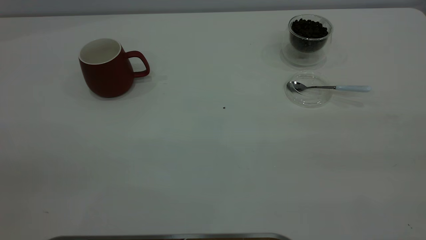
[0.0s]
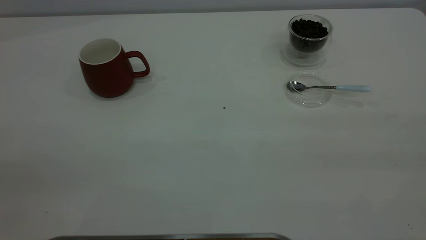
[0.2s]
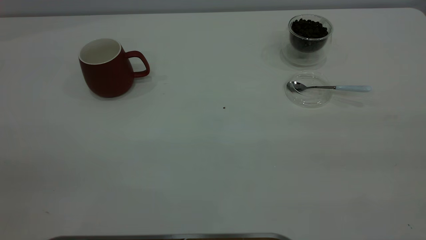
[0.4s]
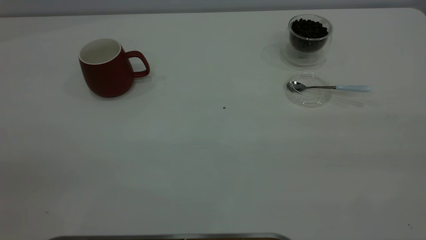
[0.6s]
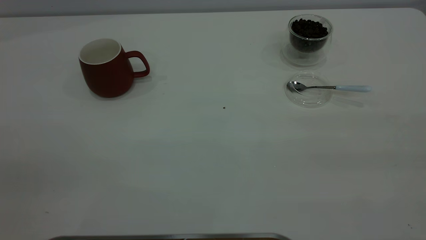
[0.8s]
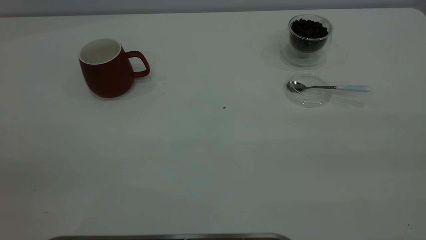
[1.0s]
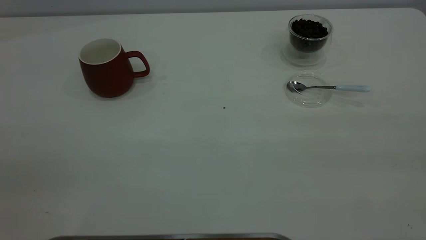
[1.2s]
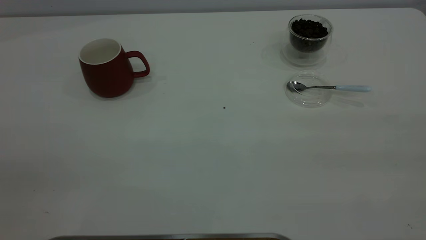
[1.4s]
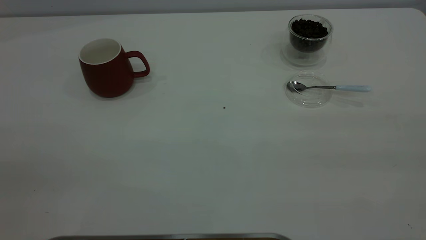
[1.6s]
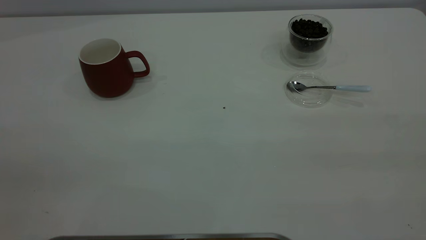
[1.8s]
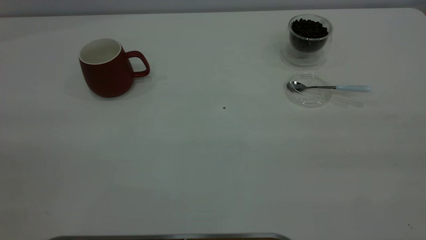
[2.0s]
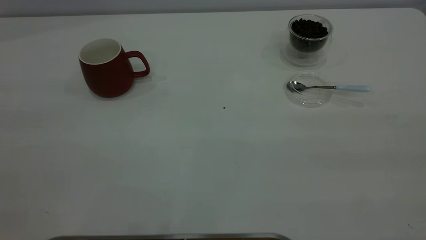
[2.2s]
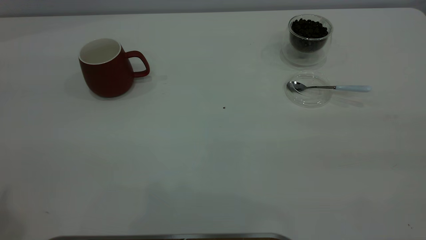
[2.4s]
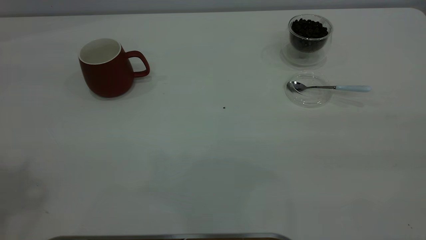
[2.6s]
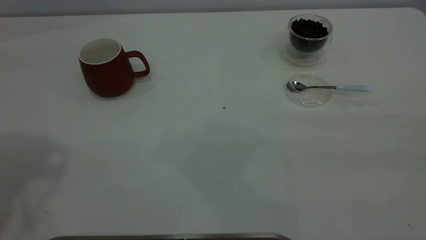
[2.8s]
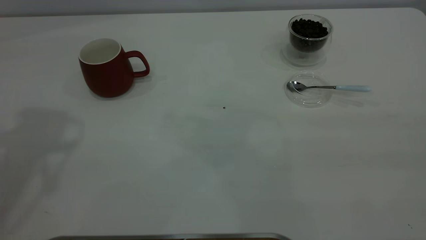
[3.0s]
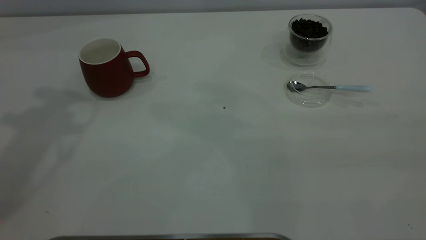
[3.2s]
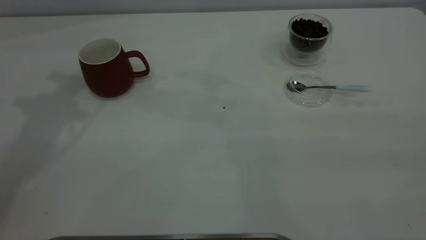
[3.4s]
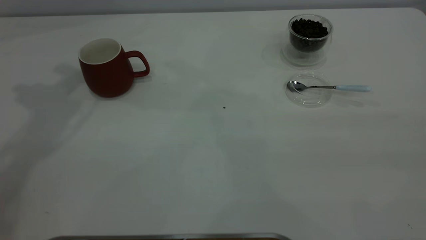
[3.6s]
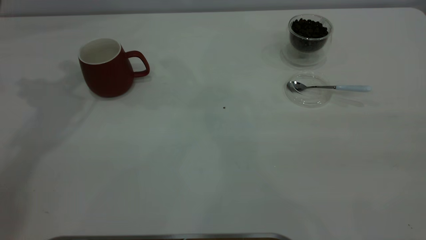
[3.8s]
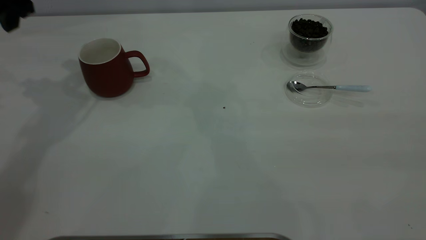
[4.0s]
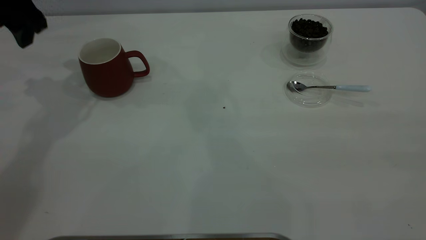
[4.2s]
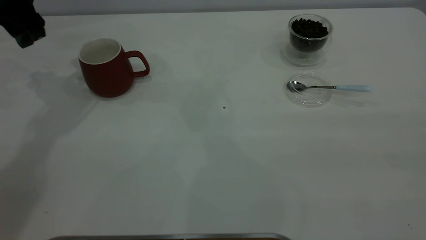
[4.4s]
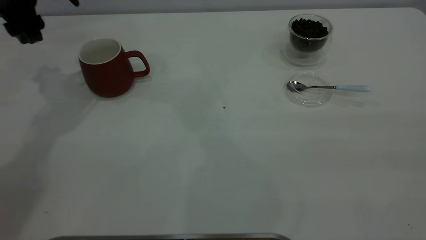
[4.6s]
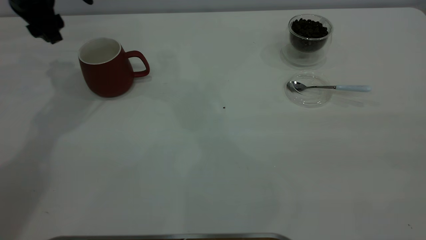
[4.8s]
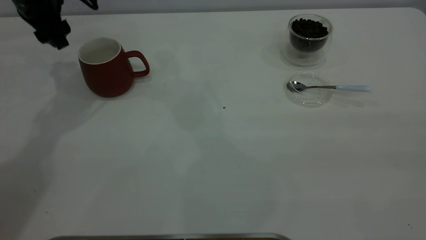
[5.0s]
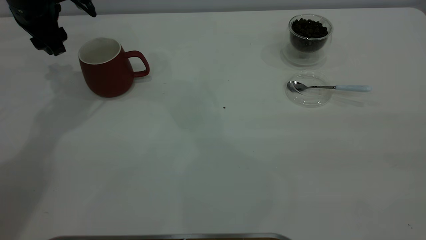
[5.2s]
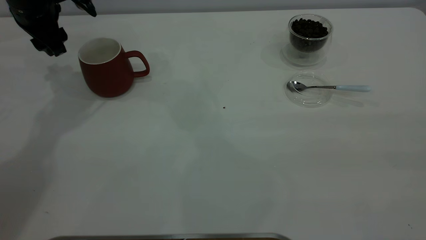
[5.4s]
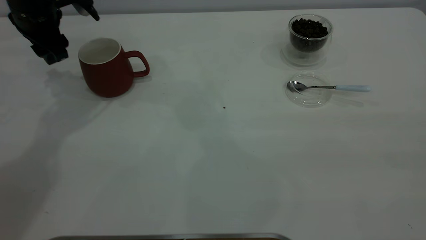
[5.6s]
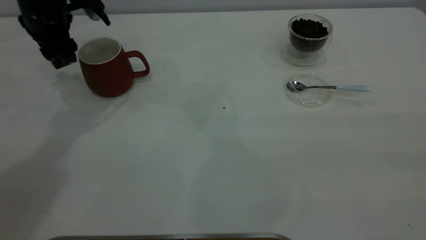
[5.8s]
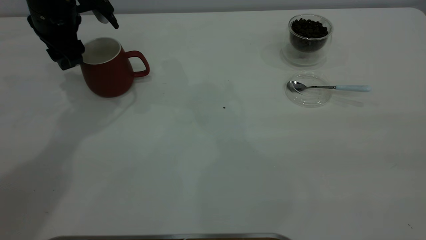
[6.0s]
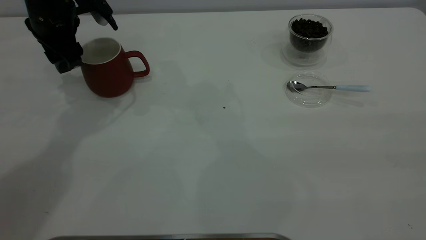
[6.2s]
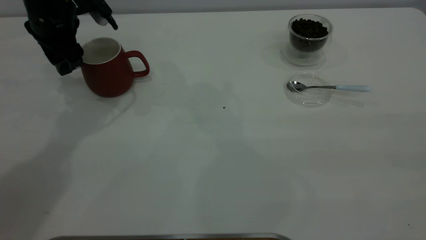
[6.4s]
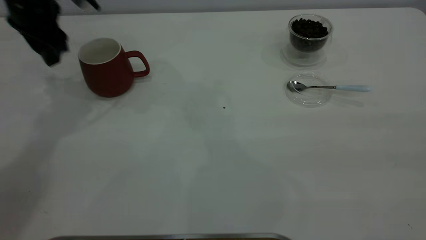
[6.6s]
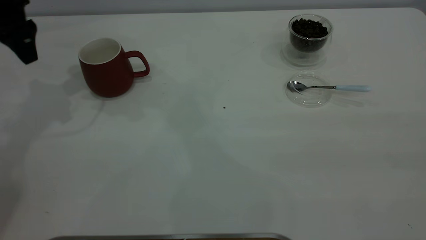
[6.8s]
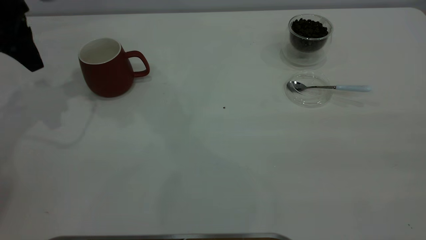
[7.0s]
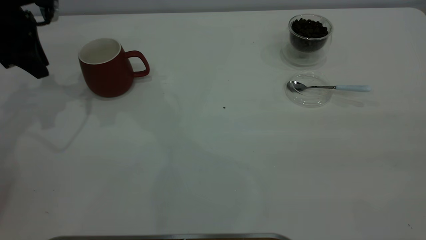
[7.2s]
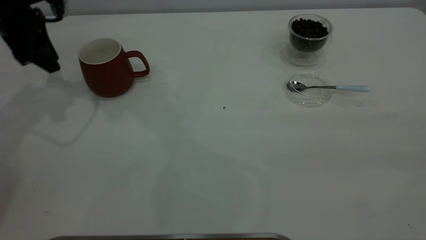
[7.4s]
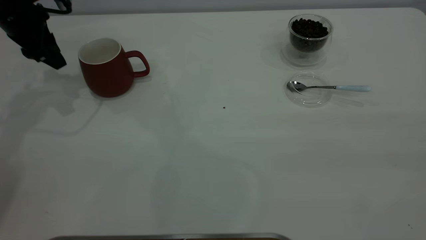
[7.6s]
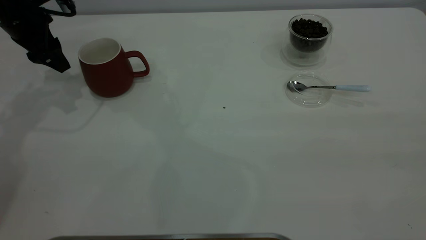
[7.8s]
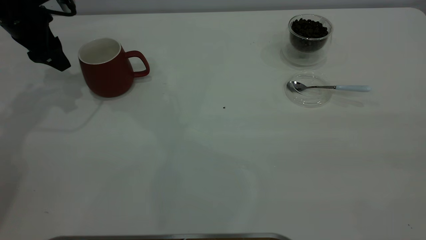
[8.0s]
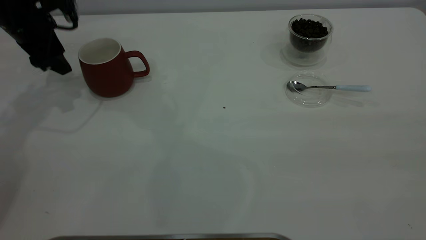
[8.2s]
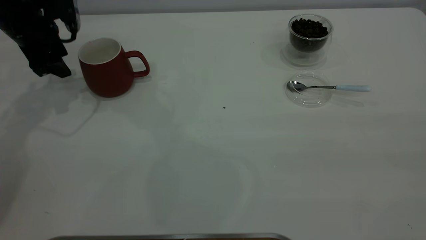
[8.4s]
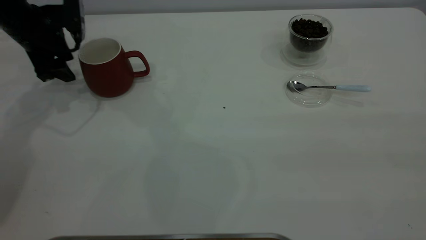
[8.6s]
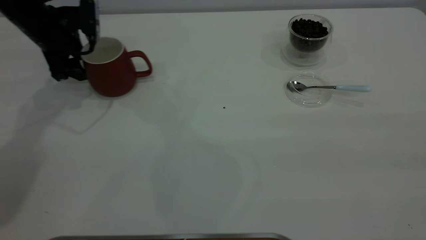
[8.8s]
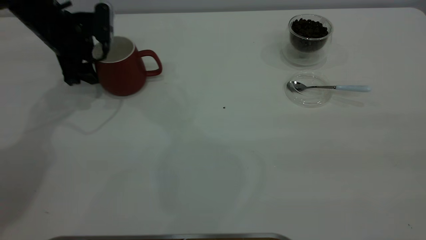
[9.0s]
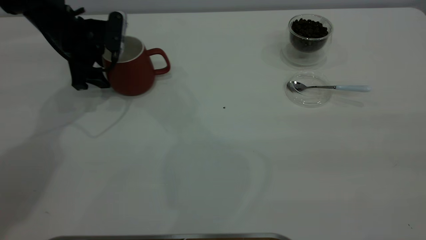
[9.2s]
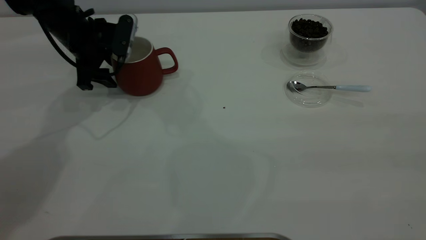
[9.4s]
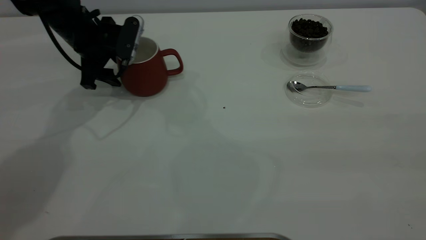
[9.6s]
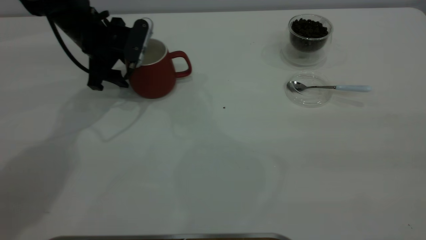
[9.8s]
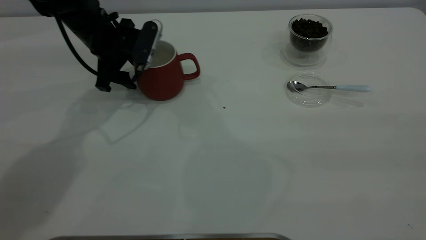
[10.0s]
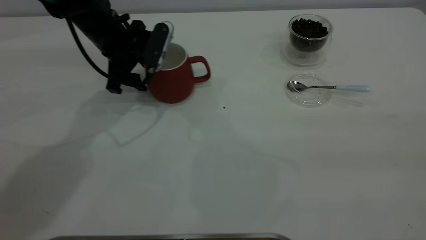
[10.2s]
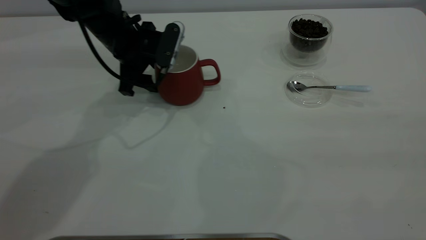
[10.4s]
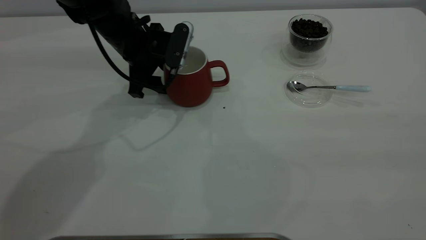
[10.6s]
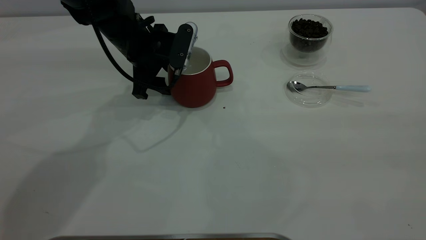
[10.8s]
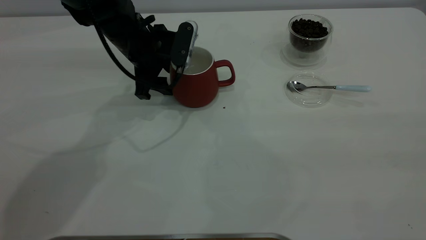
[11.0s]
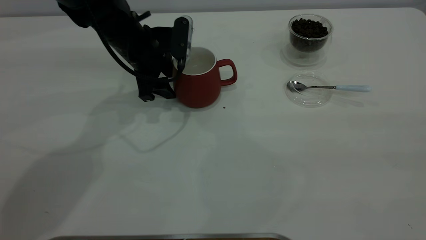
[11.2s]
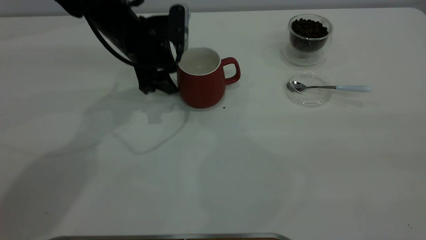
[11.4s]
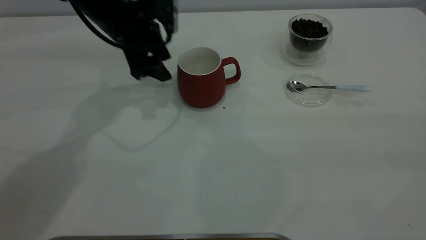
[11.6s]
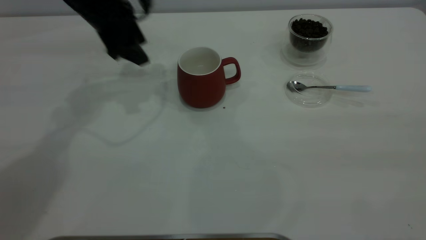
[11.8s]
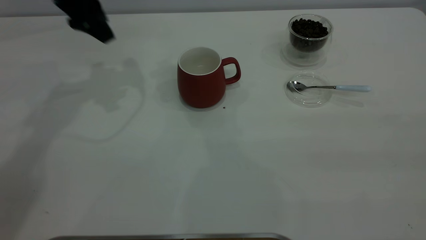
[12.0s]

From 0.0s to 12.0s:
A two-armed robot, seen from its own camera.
Task of the whole recording: the left gripper place the red cup in the center of the table, the right gripper take the blue spoon from the cup lid and scoop out the coffee beans from the coffee cup and put them into the red cup, the right gripper put the spoon back into the cup lid.
Step, from 0.0s to 11.6s: Move the cup to the center of view.
From 0.0s to 1.6s: The two grippers keep their place.
From 3.0s to 4.4s: The left gripper heads downward and forward, covering approximately 25 cm, and opens up.
From 4.4s to 6.0s: The left gripper goes roughly 5 cm to the right.
From 6.0s to 7.6s: The left gripper travels to the left by some 10 cm, and closes its fingers.
From 7.6s to 9.0s: The left gripper goes some 10 cm downward and to the right, and opens.
From 9.0s to 10.4s: The left gripper heads to the right, covering about 10 cm.
From 10.4s to 12.0s: The left gripper heads upward and to the left, covering roughly 15 cm.

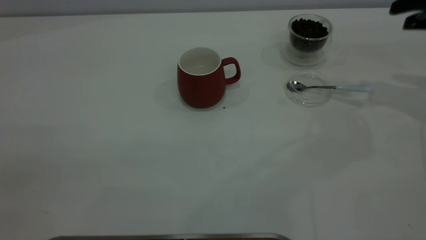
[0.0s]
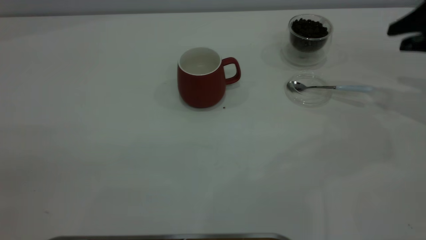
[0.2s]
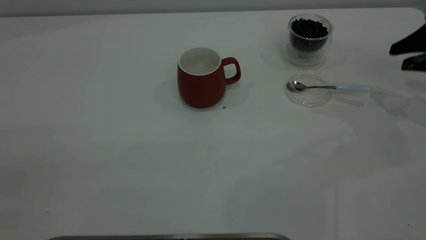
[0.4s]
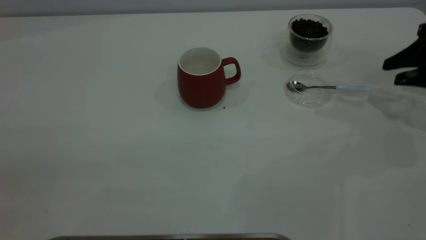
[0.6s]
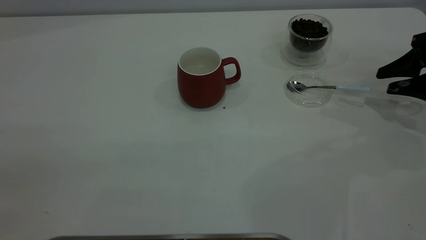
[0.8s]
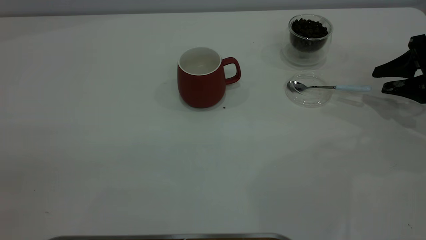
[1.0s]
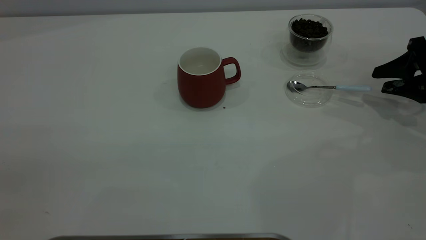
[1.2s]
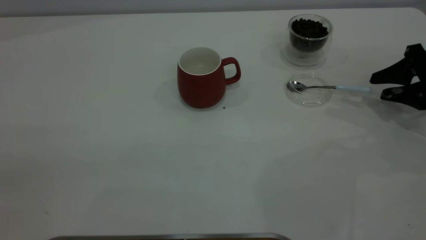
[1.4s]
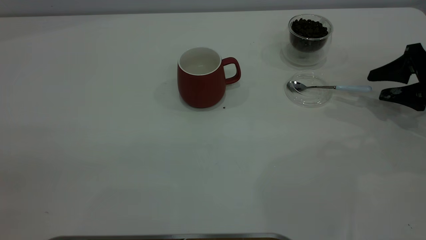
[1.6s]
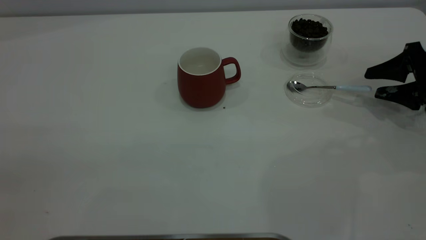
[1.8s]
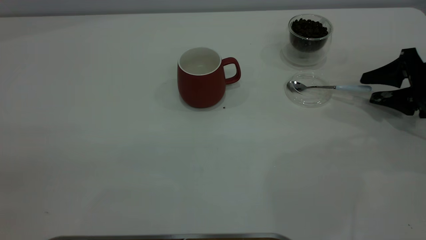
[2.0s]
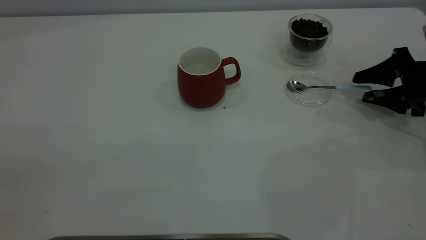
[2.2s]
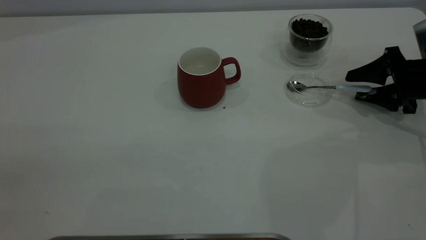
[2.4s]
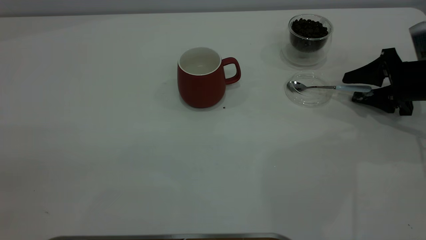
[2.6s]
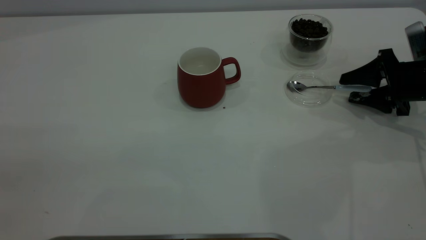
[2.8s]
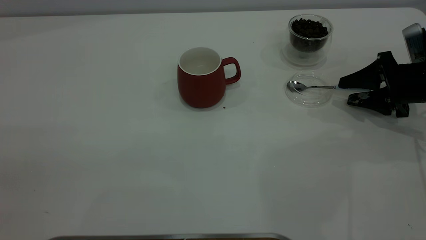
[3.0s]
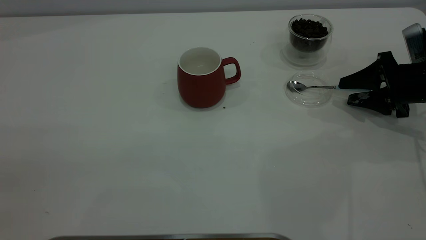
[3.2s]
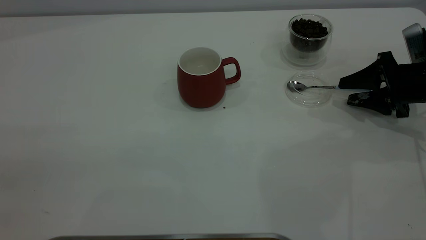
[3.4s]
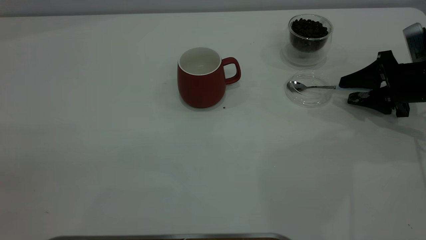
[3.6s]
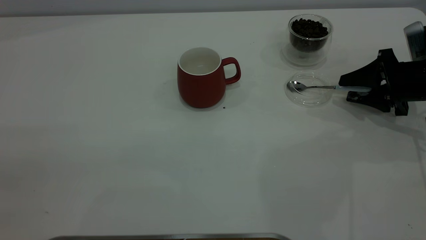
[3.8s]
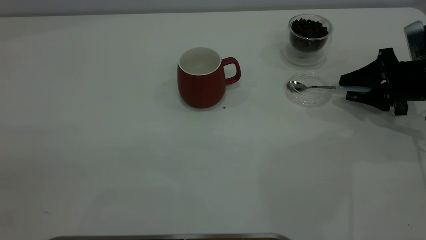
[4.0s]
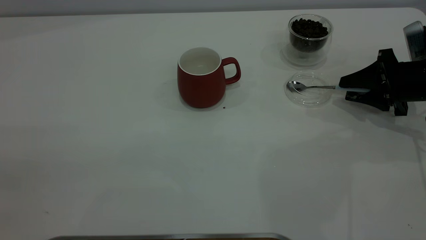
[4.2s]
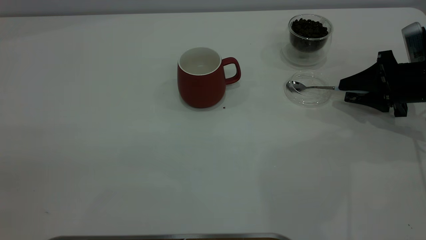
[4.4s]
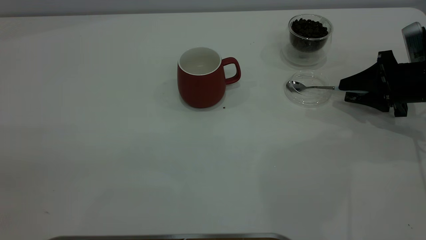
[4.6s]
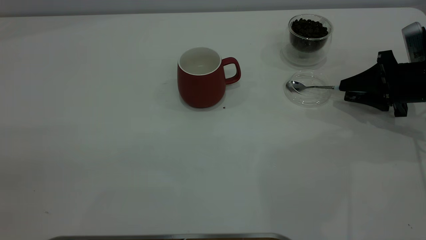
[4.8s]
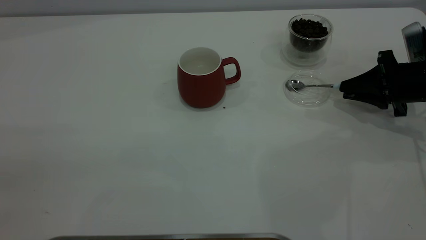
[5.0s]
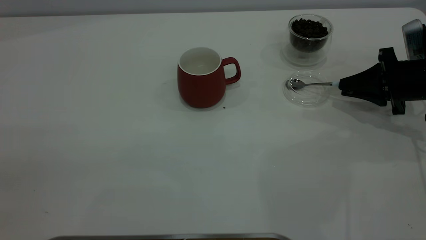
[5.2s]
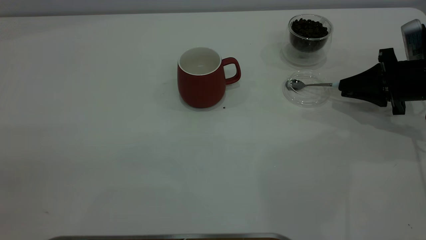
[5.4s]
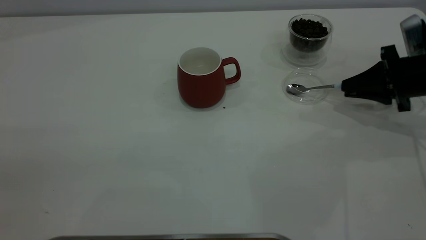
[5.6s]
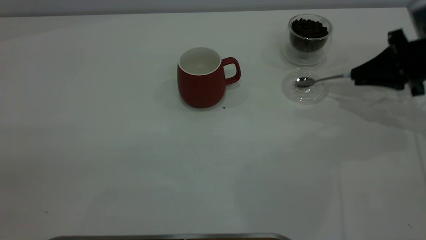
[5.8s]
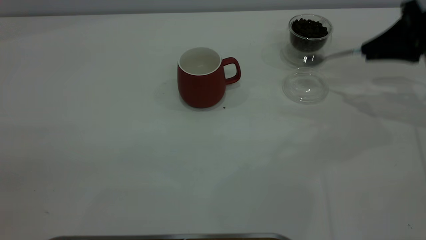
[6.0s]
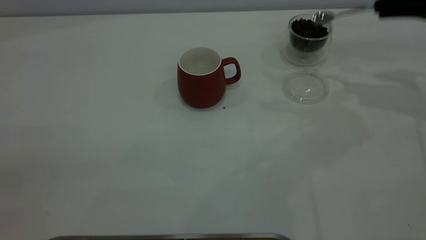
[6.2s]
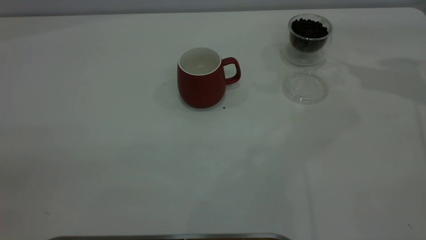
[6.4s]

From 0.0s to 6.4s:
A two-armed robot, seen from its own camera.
Task of the whole recording: the left gripper place the red cup in the center of the table, the right gripper take the blue spoon from the cup lid and scoop out the coffee beans from the coffee cup and put them into the red cup, the right gripper put the spoon back into the cup lid.
Step, from 0.0s to 5.8s: Pick up the spoon.
From 0.0s to 1.6s: The right gripper shifts approximately 10 cm downward.
From 1.6s to 3.2s: There are only small adjustments of the grippers.
From 3.2s to 4.8s: The right gripper closes up.
From 4.8s to 6.4s: The right gripper is displaced upward by some 20 cm.
